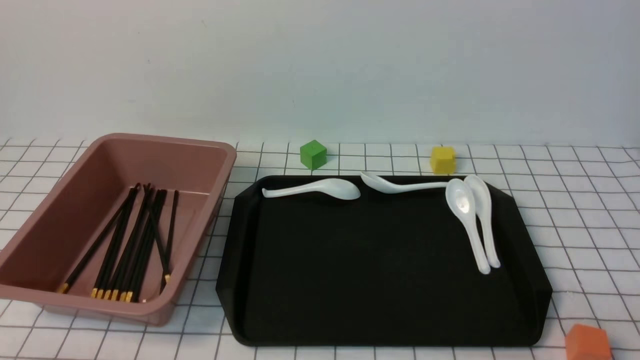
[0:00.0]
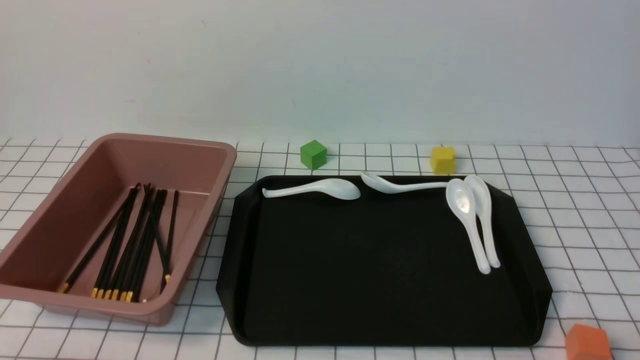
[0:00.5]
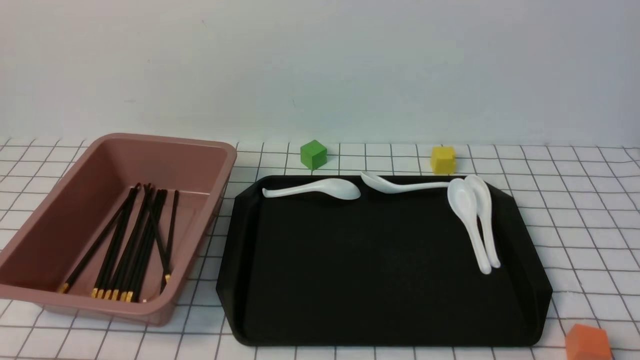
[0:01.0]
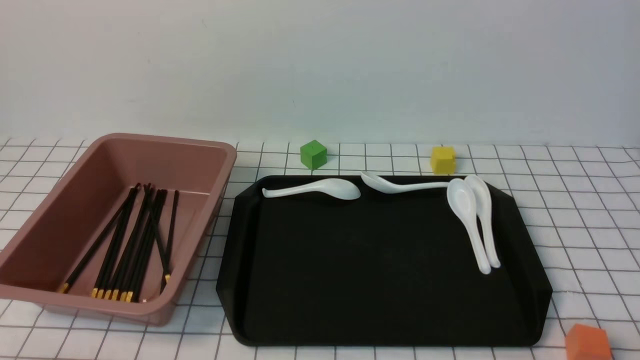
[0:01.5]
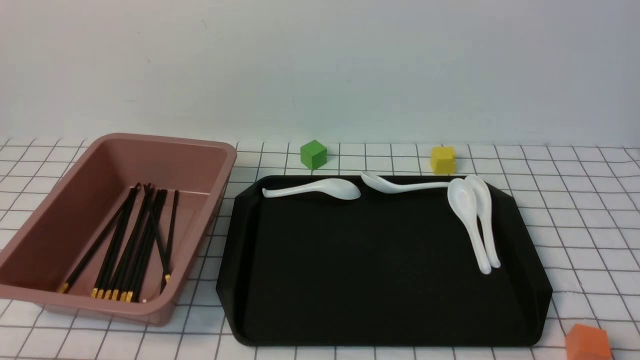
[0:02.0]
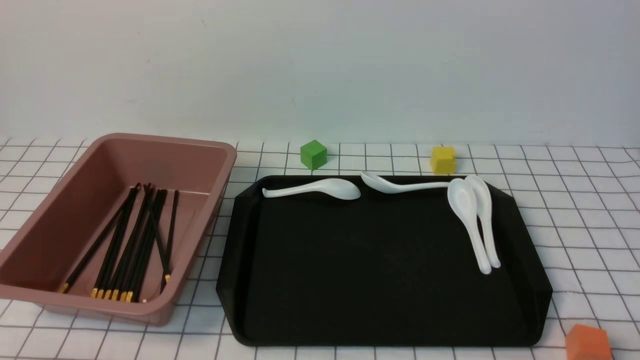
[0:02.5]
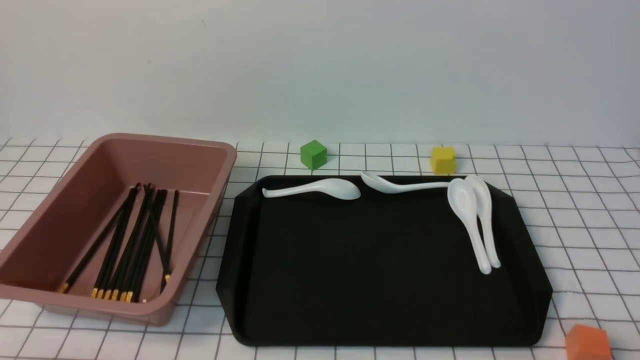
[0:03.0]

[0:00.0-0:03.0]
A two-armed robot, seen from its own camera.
0:01.5 to 0:03.0: Both grippers stay about where they are.

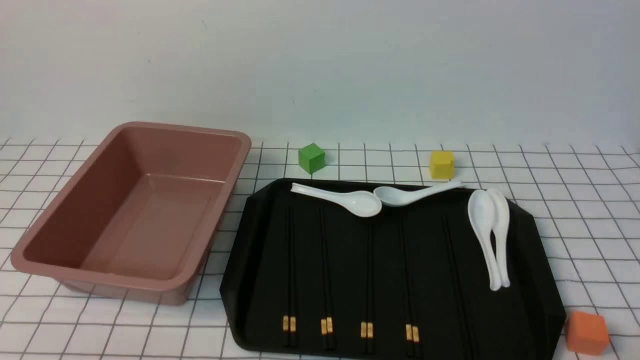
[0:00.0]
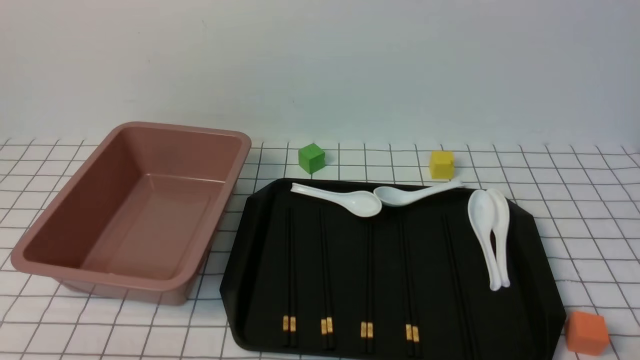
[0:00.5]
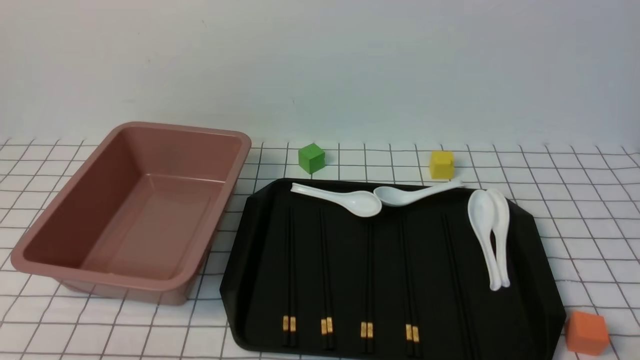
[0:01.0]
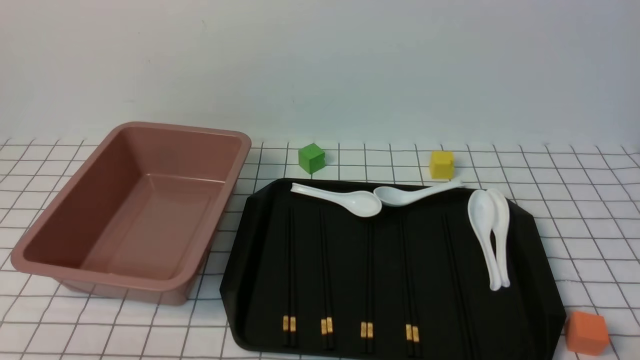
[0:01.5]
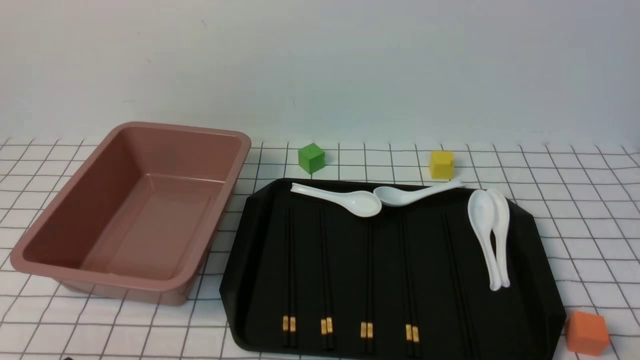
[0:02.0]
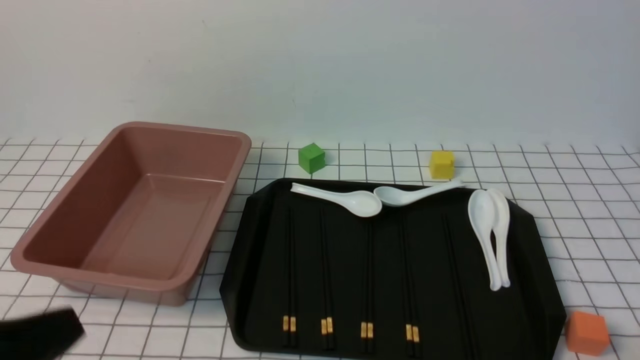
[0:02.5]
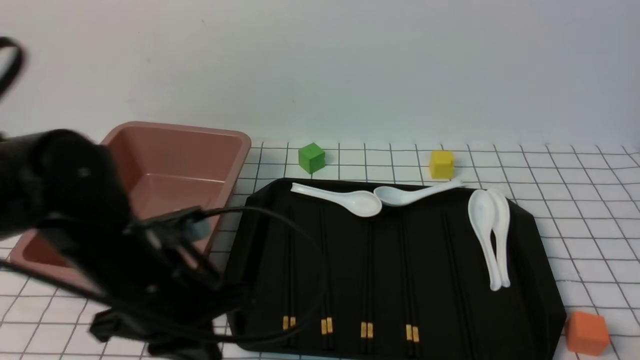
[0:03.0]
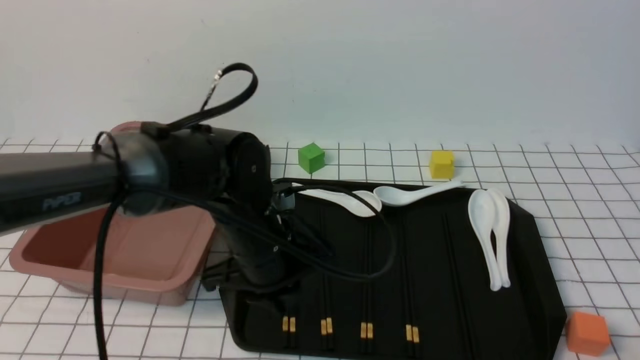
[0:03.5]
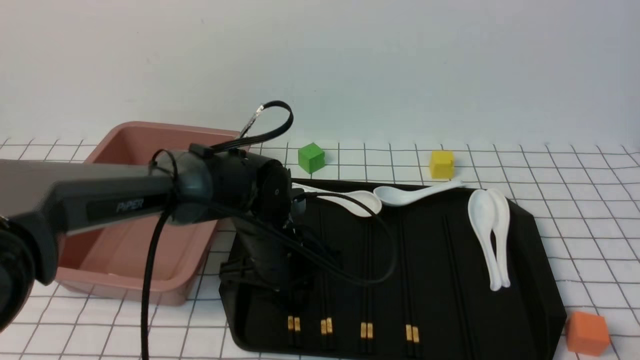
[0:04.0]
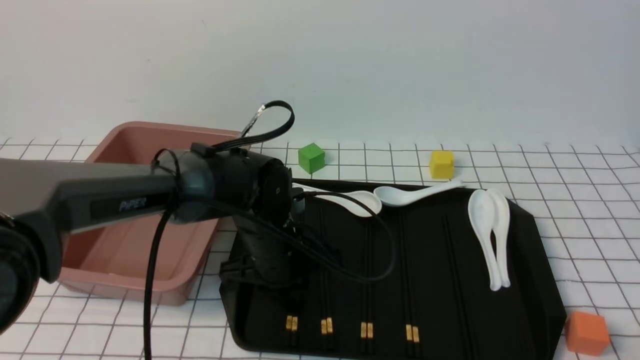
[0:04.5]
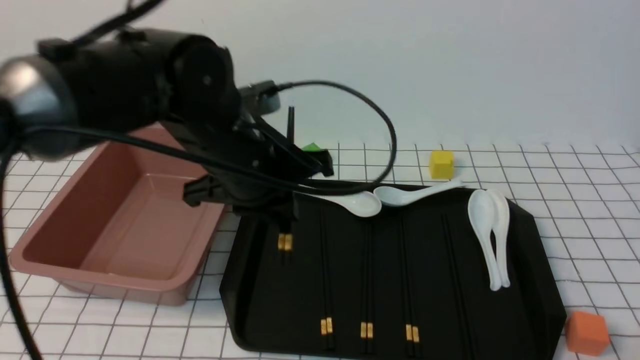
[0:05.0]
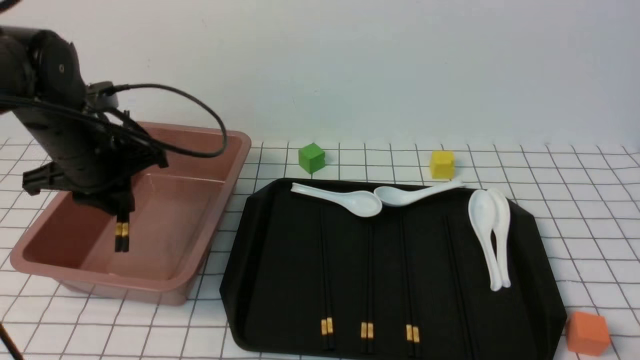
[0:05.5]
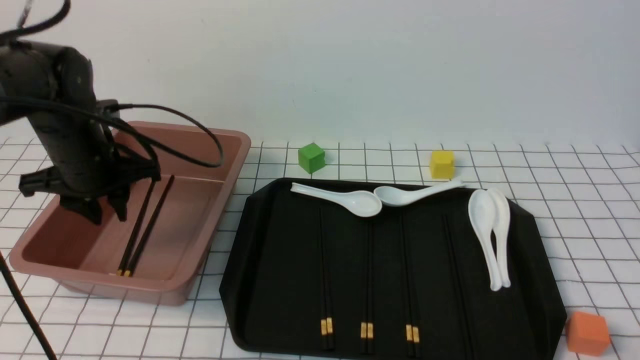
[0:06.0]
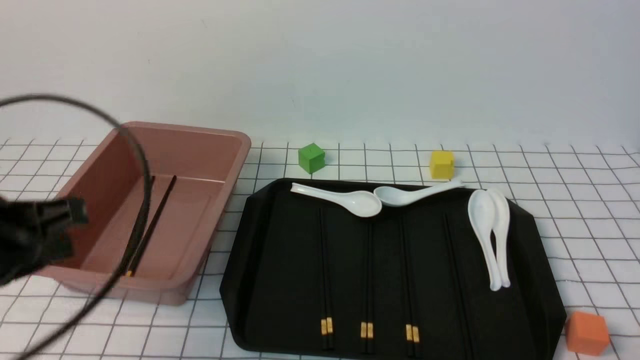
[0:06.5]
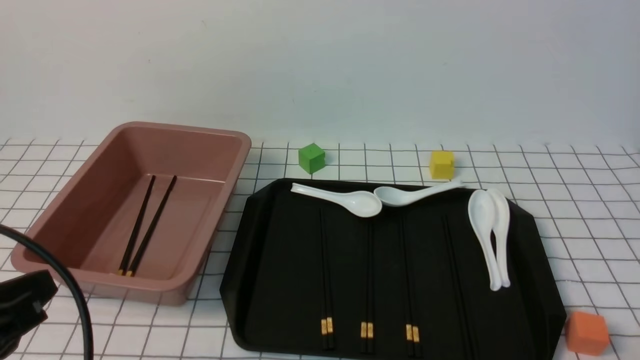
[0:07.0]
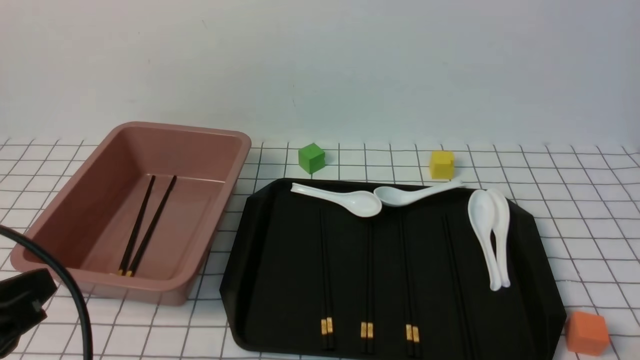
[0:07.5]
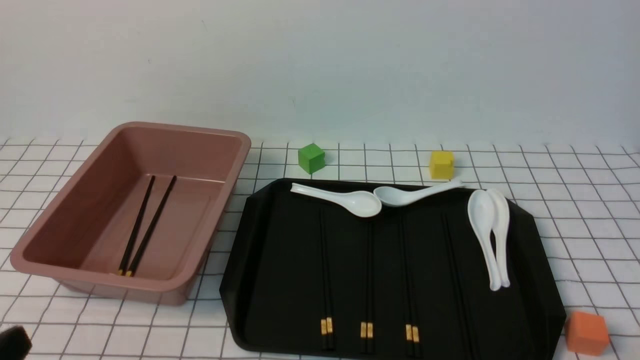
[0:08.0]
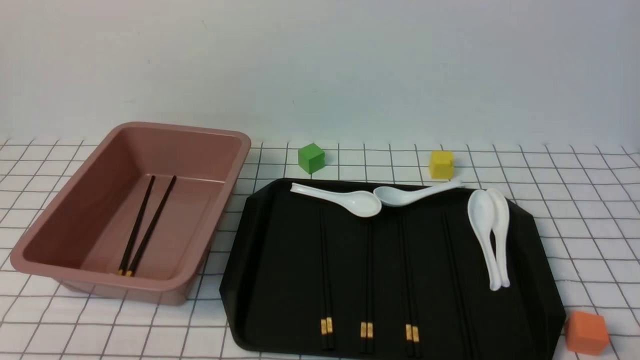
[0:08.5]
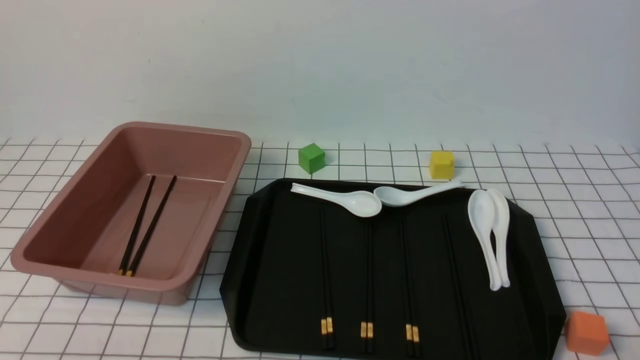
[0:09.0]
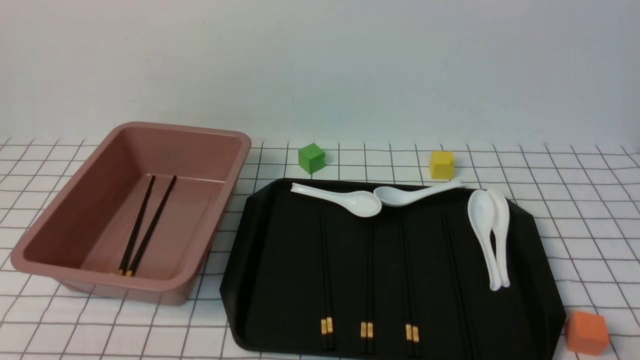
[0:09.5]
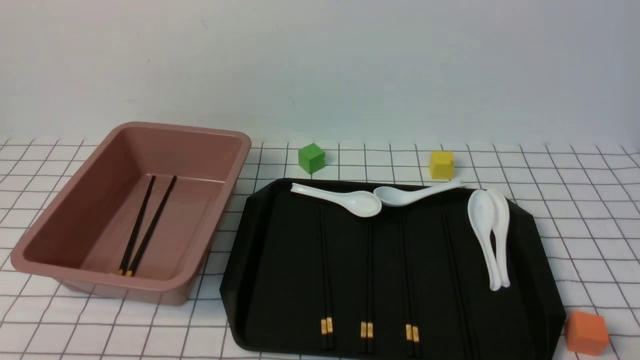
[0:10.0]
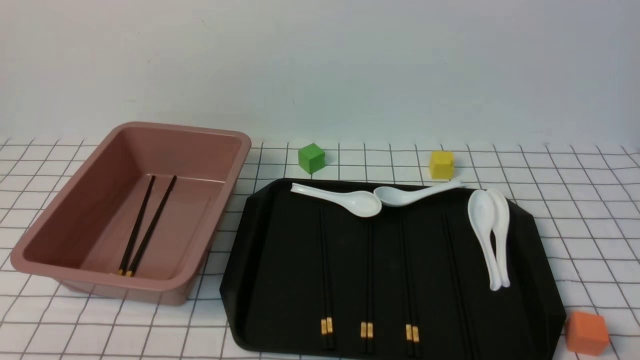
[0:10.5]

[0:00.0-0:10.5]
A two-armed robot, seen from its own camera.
Step, 0:00.0 to 0:05.0: use the left arm to grab a pair of chopsticks.
Step, 0:05.5 to 0:06.0: use the left arm to put the chopsticks into the lunch box.
0:02.0 to 0:04.0: The left gripper moves forward and to the right, approximately 35 cm, and closes and opens again.
0:04.0 to 0:06.5: The left gripper is displaced to the left, upward and backward by about 25 cm, and closes.
0:06.5 to 0:08.5: The left gripper goes roughly 25 cm backward and downward.
0:08.5 to 0:10.5: Neither gripper changes place.
